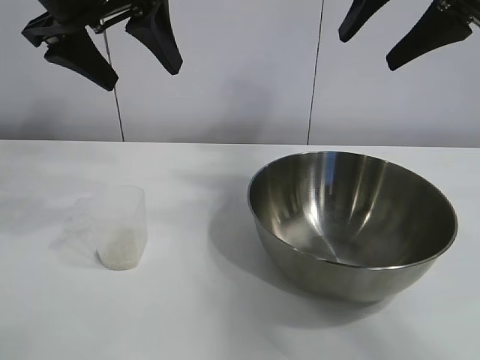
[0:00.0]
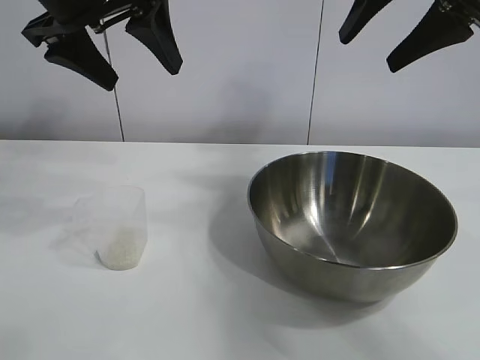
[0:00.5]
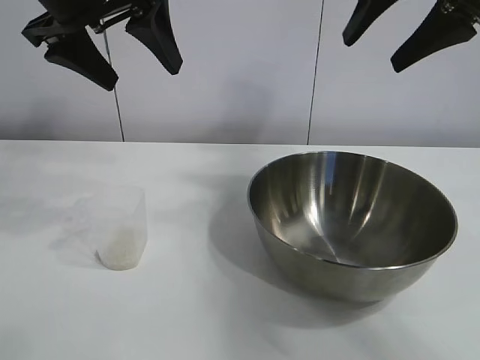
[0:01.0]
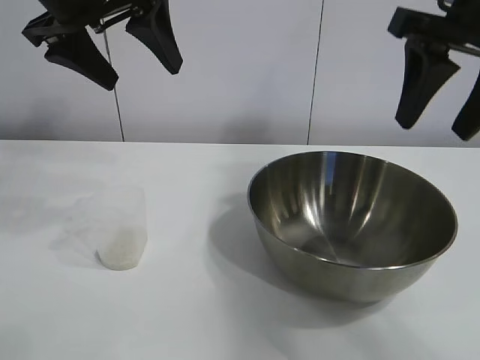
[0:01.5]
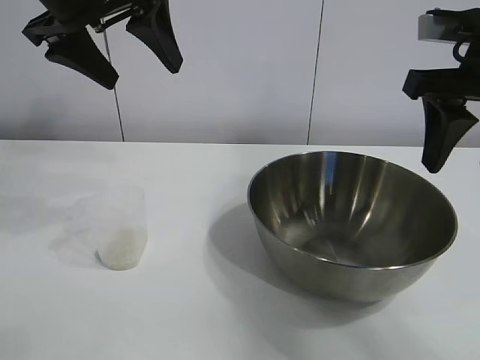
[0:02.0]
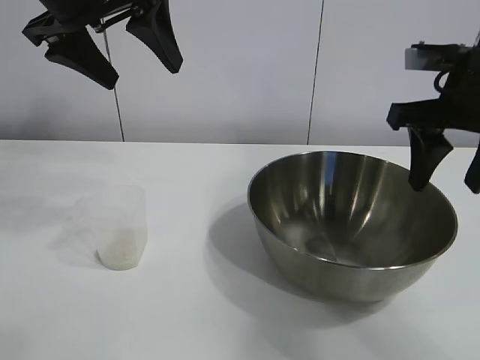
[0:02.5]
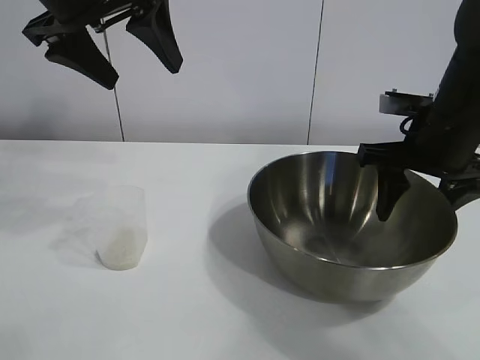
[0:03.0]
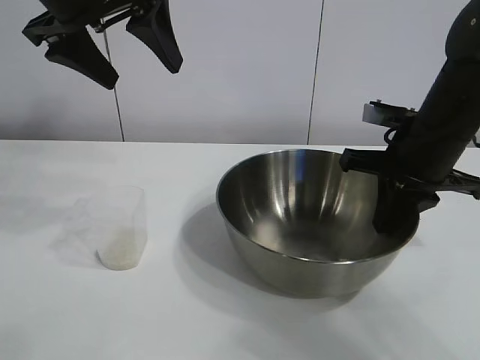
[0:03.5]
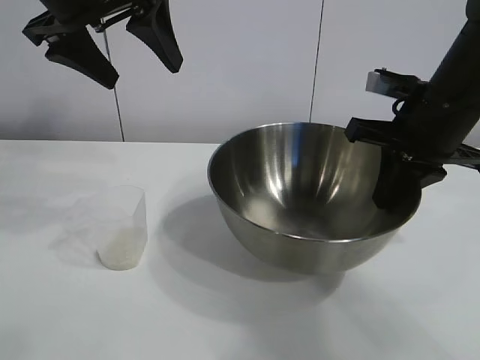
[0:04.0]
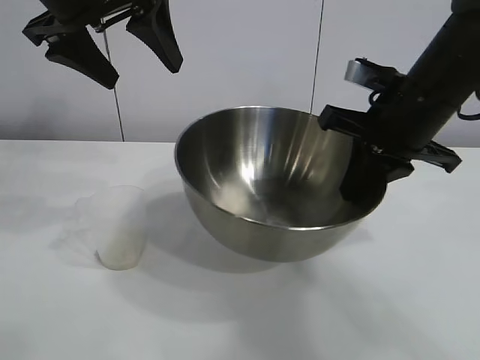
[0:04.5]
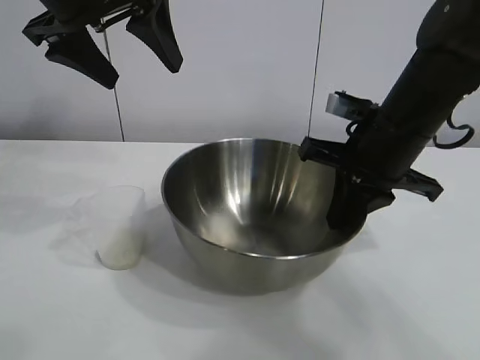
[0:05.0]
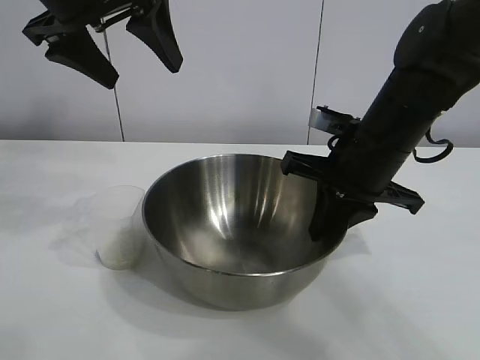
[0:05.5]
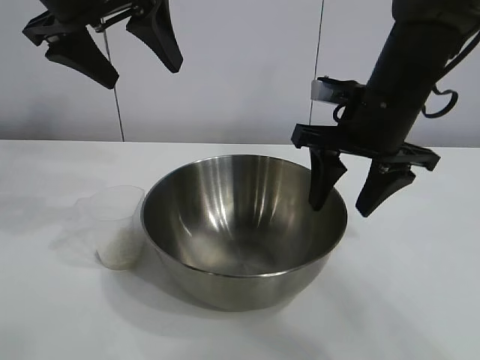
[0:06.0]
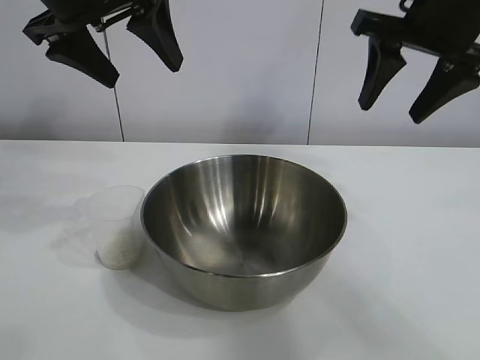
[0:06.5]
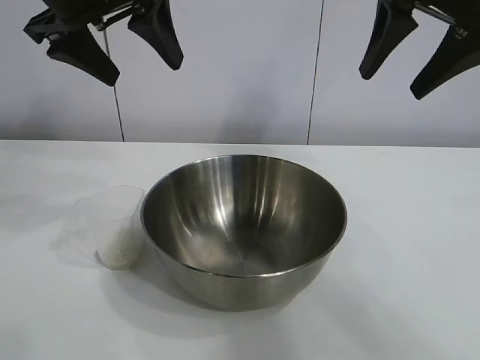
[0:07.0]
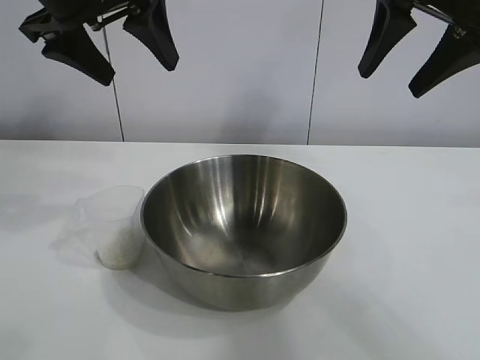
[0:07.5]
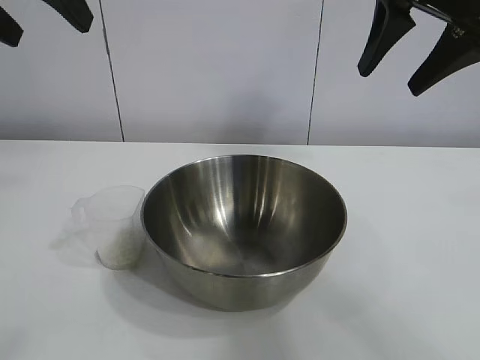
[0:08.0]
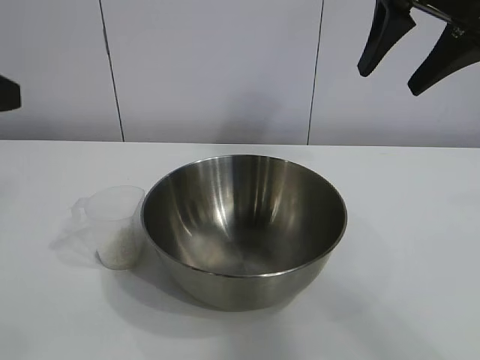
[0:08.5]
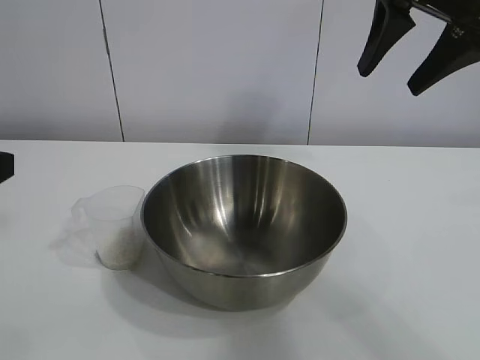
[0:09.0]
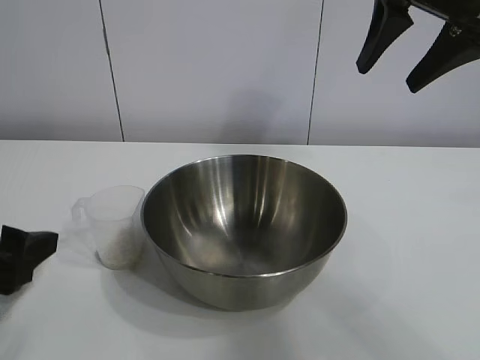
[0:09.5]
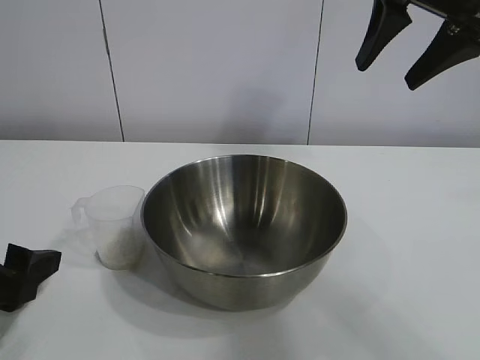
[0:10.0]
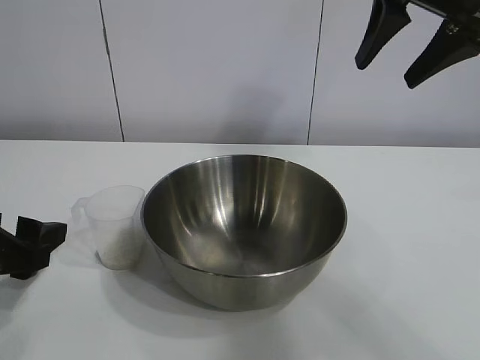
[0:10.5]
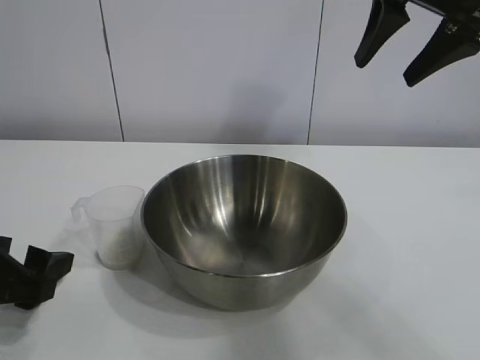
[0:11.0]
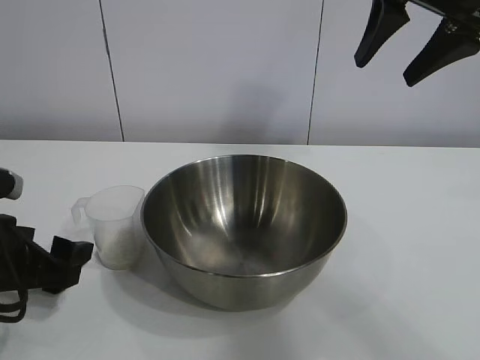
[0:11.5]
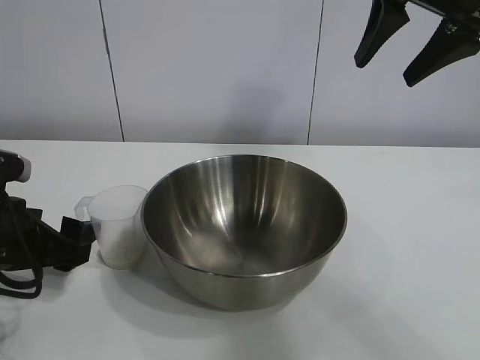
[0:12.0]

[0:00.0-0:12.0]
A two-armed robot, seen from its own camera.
Task of the whole recording: the right gripper grasp the rice container and place it in the center of the table, the left gripper grasp the rice scoop and pour the rice into the rice container.
Step, 0:01.0 to 0:05.5: Move the bowl in the center of view with right gripper.

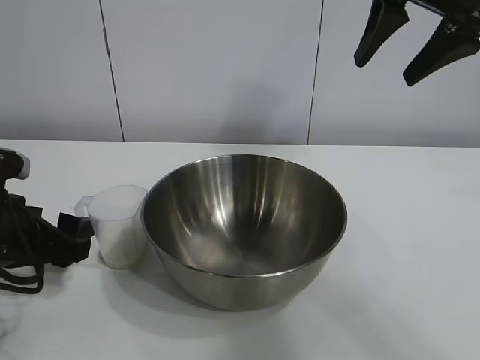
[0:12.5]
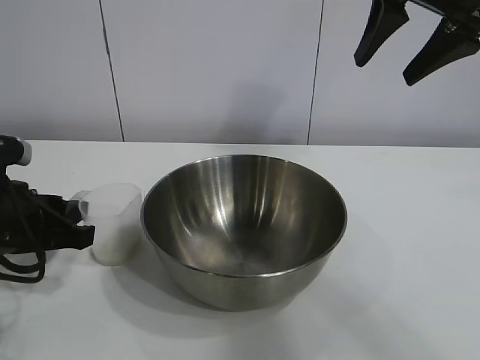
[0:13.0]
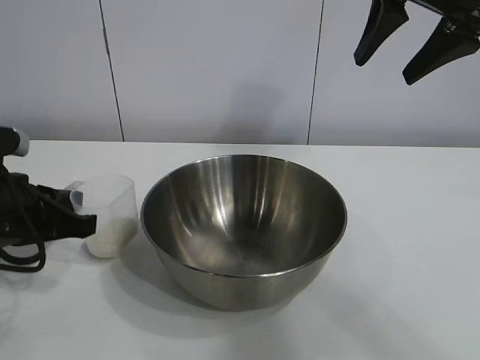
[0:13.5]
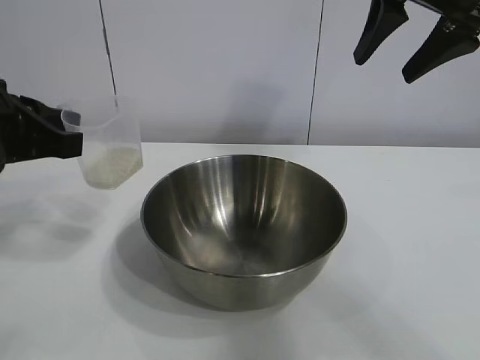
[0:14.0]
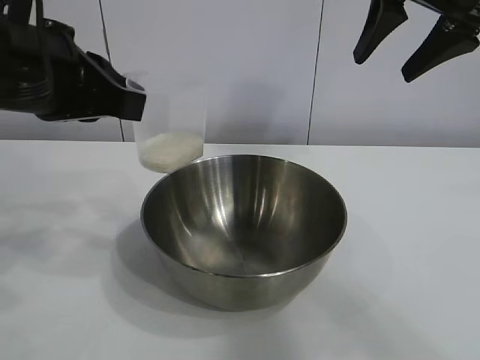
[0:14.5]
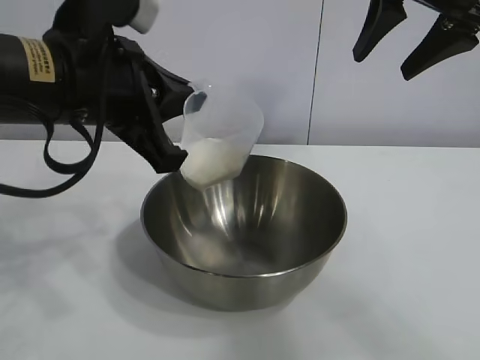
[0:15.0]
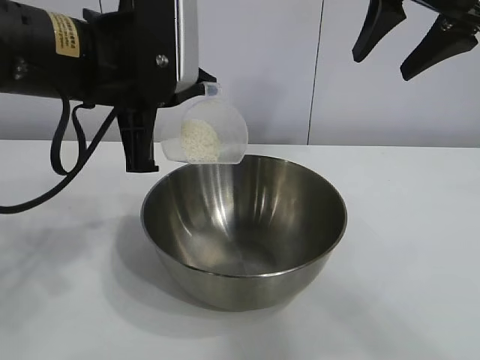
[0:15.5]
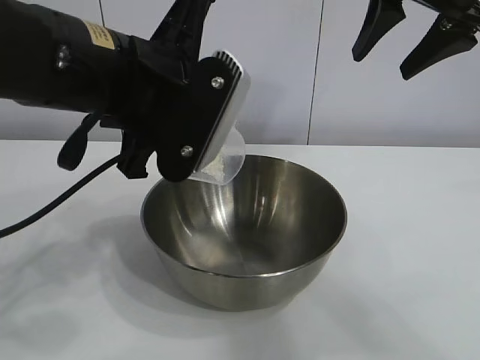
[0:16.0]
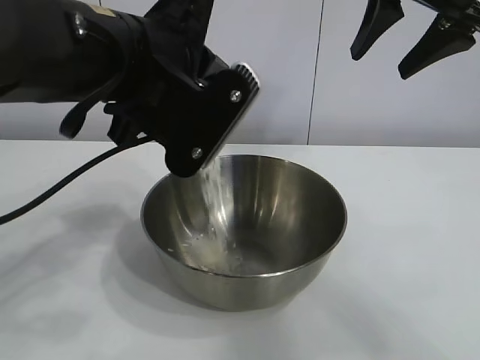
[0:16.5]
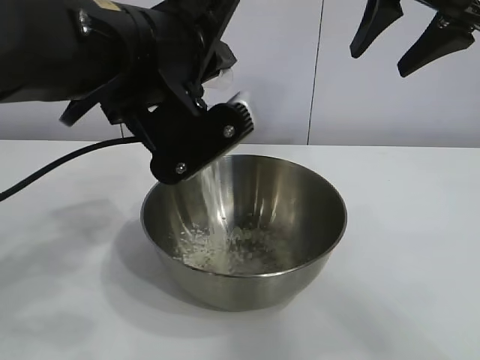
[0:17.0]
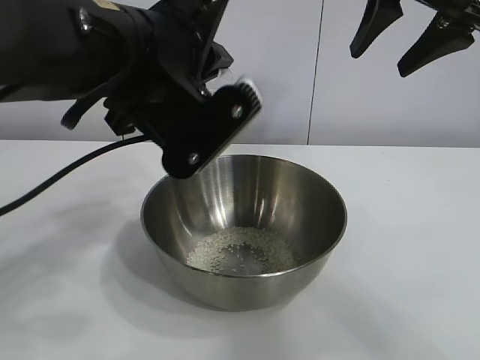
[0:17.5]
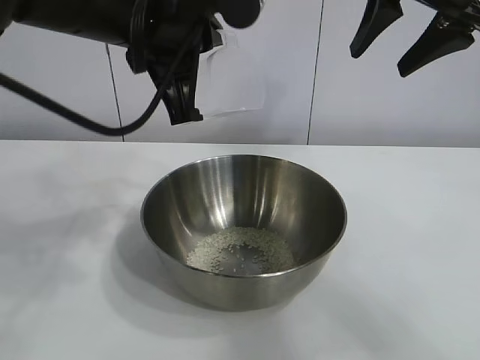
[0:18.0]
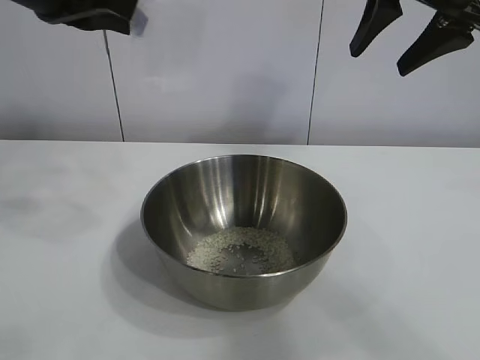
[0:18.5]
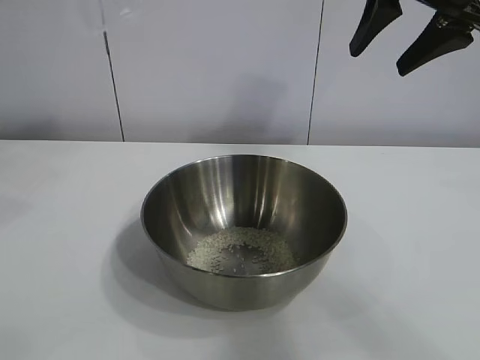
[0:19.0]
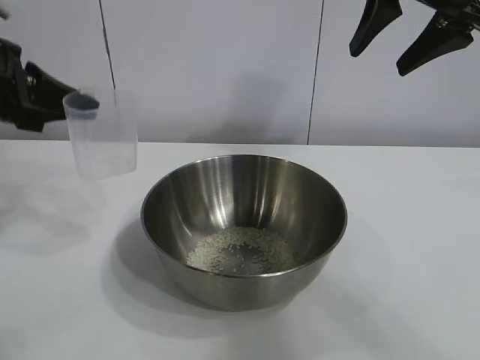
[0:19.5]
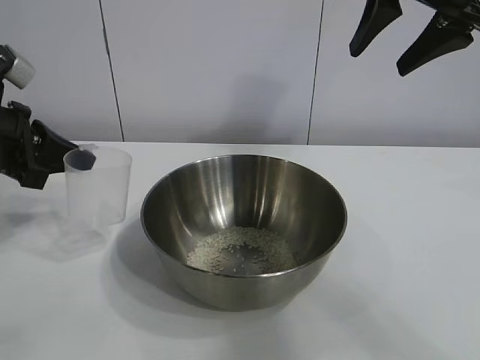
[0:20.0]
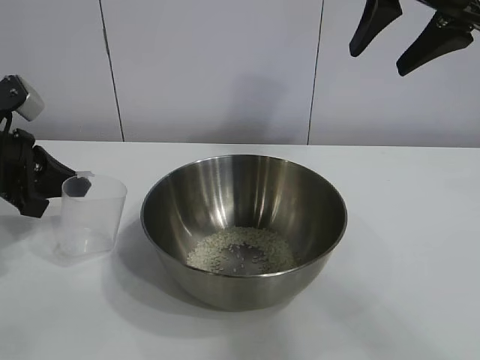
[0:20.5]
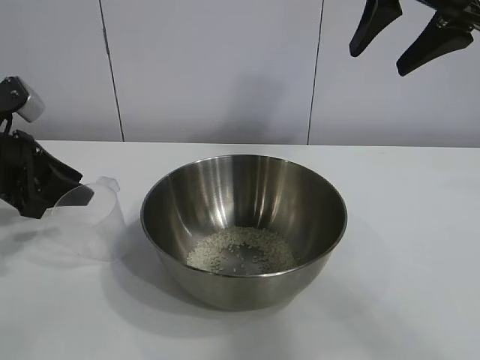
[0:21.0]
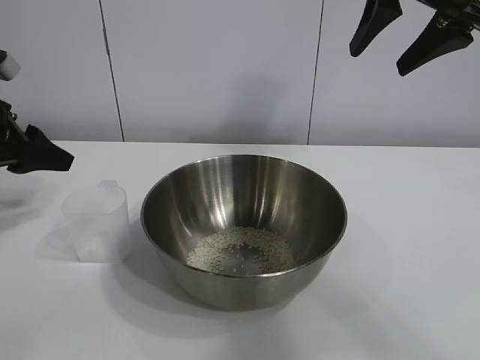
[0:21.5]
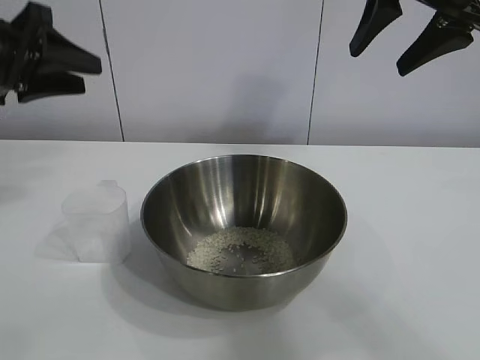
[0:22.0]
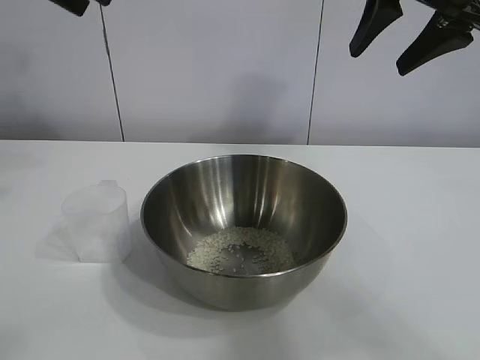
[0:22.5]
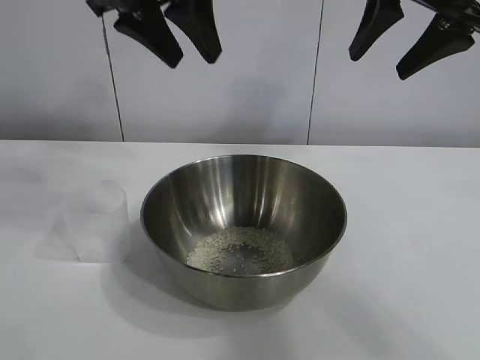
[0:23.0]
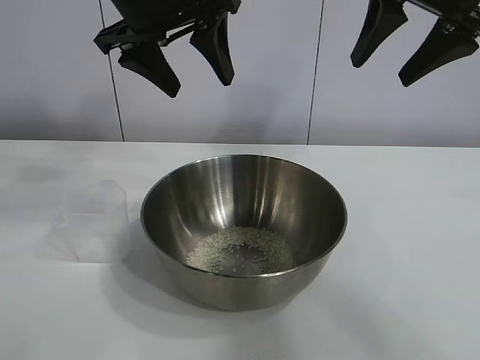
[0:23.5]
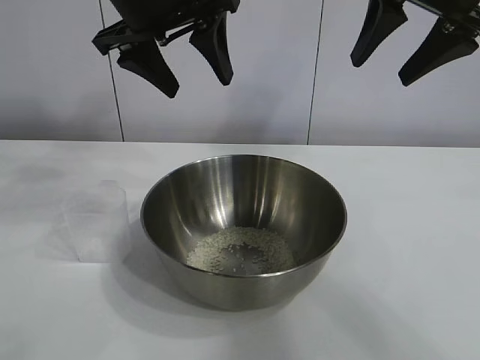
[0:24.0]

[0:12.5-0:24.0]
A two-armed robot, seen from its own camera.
Task of the whole recording: the right gripper grasp the rice container and place it in the center of the table, the left gripper grasp the rice scoop and pour the rice into the rice container.
Step, 0:13.5 to 0:17.5: Pour the rice from the cup into the bowl with the left gripper.
Step, 0:18.0 to 0:21.0: Place the cup on the table with the left gripper.
